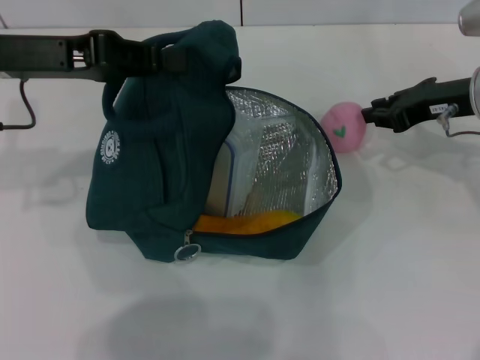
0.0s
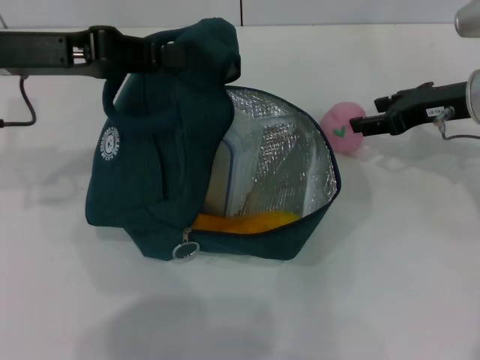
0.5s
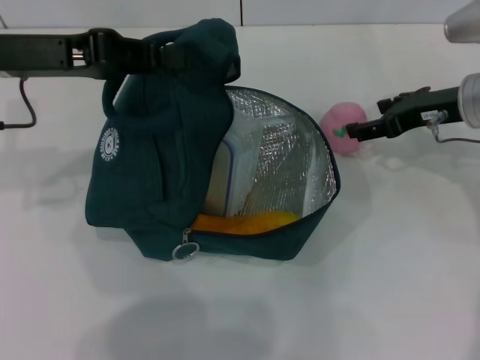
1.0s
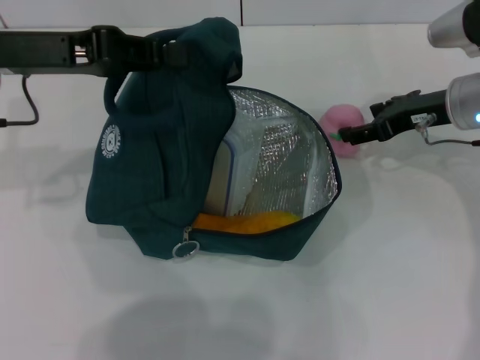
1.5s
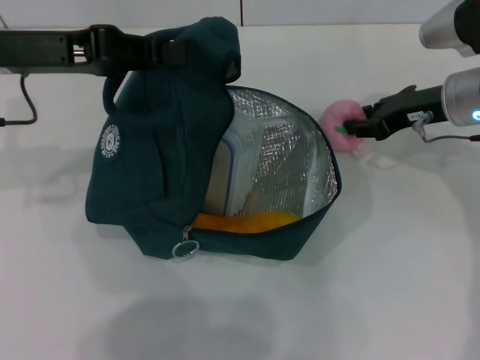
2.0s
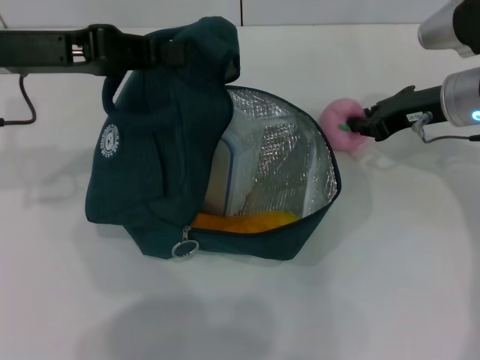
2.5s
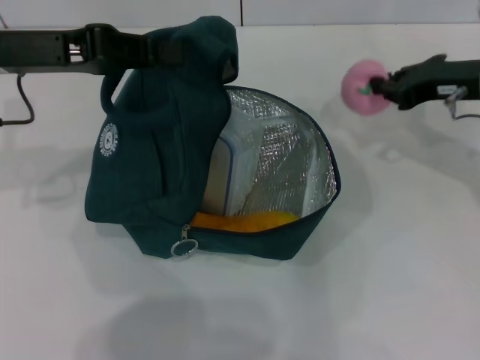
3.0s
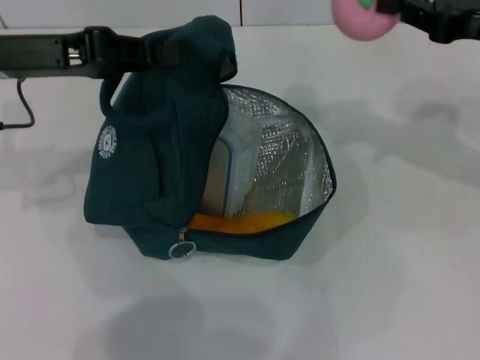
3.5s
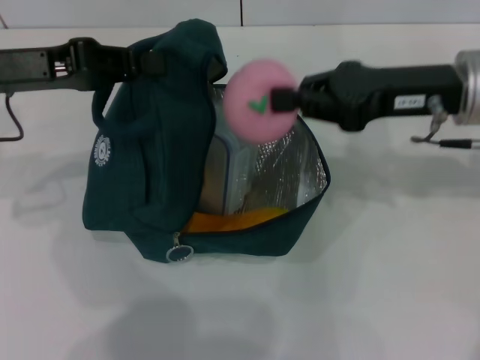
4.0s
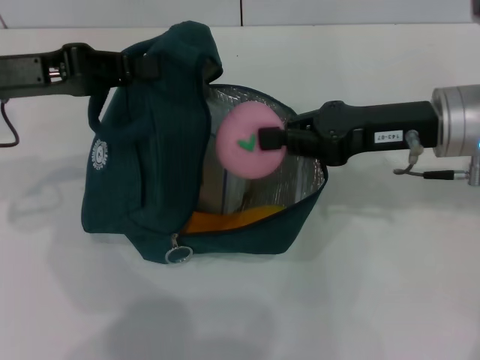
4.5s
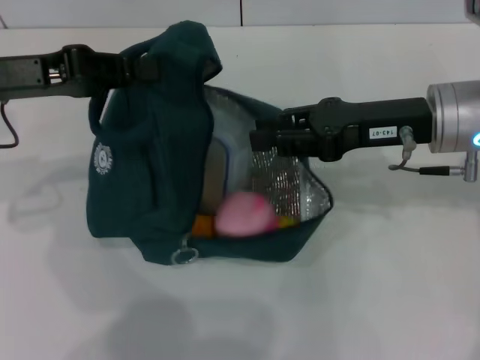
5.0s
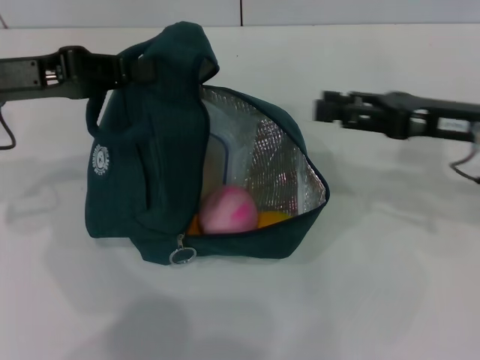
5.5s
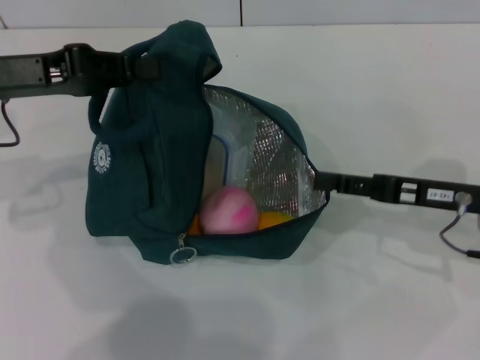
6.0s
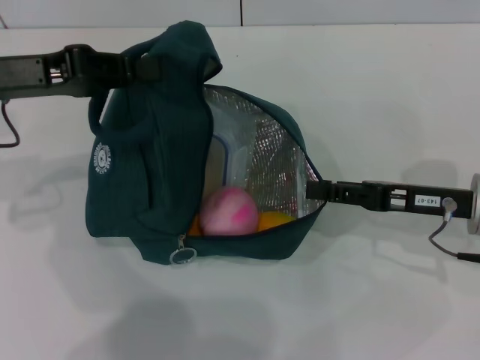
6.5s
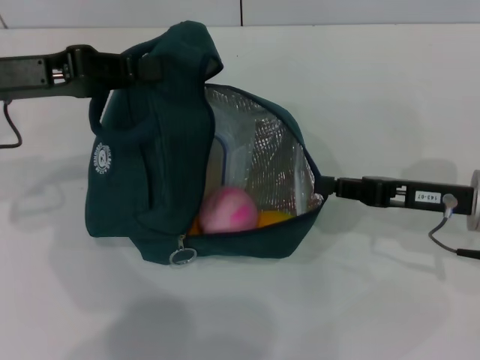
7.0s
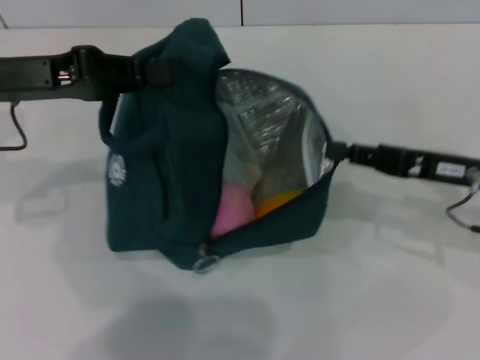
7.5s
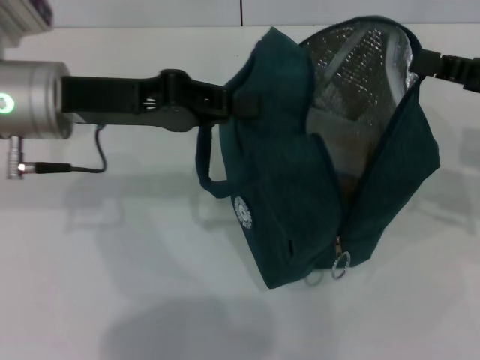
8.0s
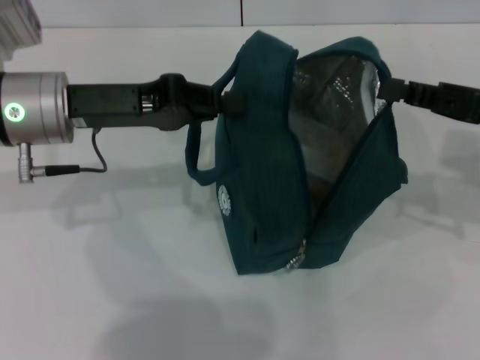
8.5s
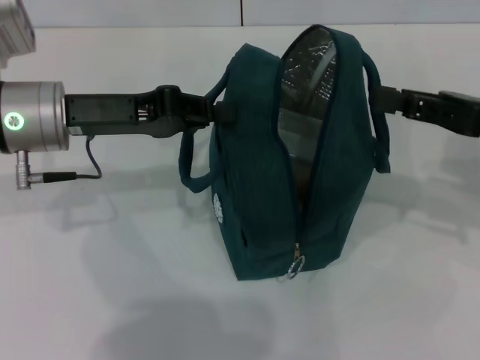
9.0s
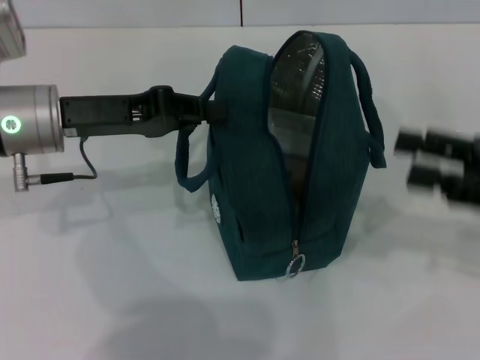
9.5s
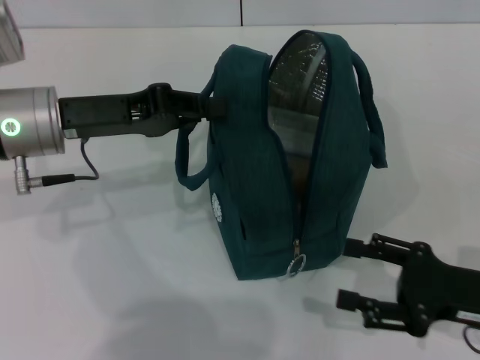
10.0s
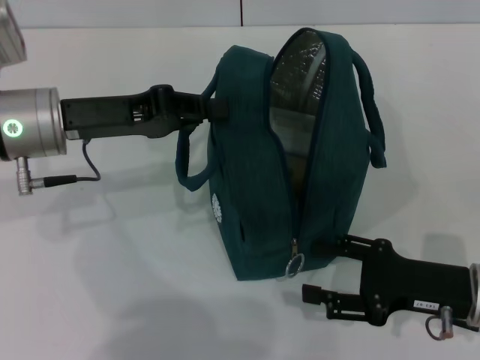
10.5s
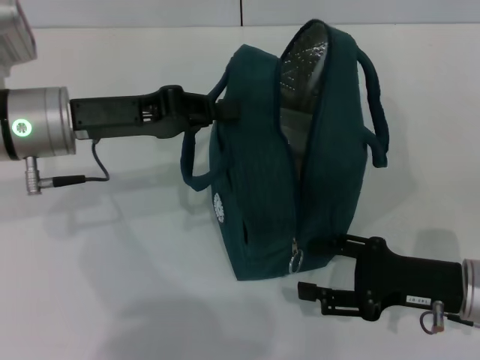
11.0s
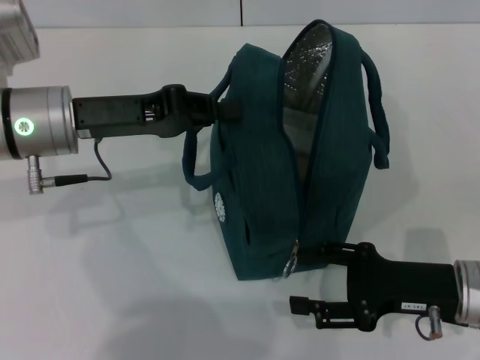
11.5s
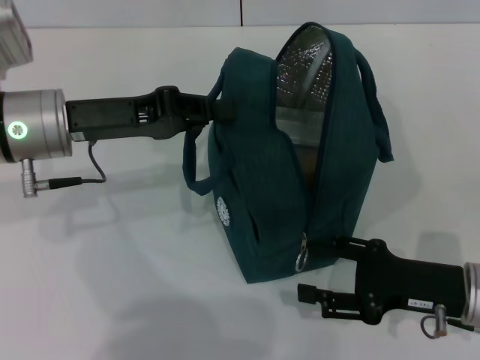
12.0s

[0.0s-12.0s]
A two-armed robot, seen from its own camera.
Step, 0.0s to 2.0s: Grab the peach with your right hand.
Step, 5.5s to 8.5s: Hold the lunch bag with your right hand.
0.0s to 2.0s: The right gripper opens.
2.0s to 4.0s: The right gripper goes roughly 10 cm backward and upward, and closes up.
4.0s to 6.0s: The right gripper travels downward by roughly 10 cm, and opens its fingers.
6.0s to 8.0s: The left gripper is displaced to the right by roughly 5 cm; the right gripper travels upward and to the right by approximately 10 cm, and closes up.
8.0s to 10.0s: The right gripper moves downward and backward, roughly 15 cm, and opens.
10.0s to 12.0s: The grippers stay close to where they were, moving slightly.

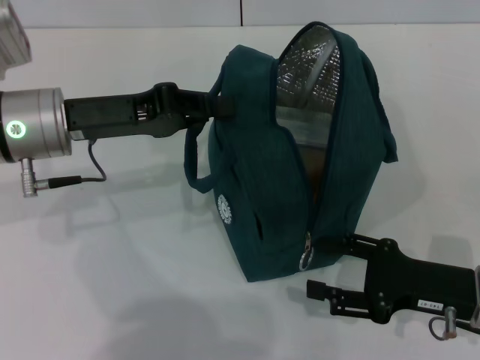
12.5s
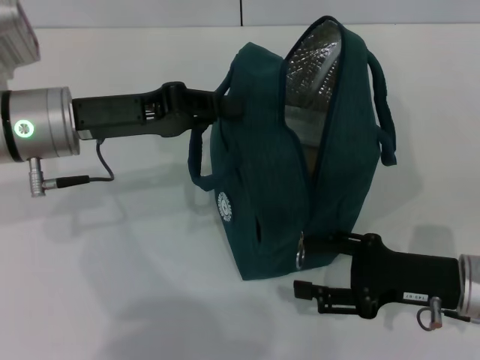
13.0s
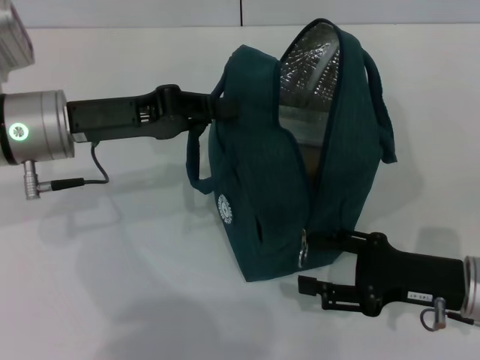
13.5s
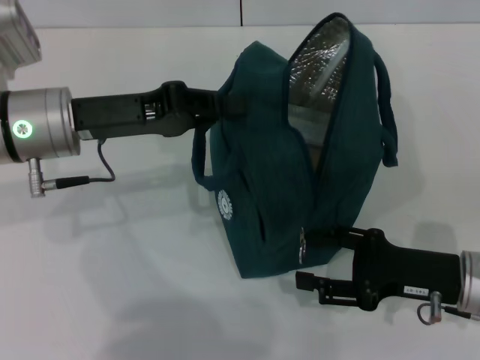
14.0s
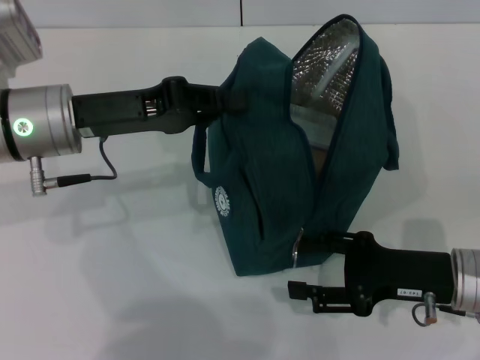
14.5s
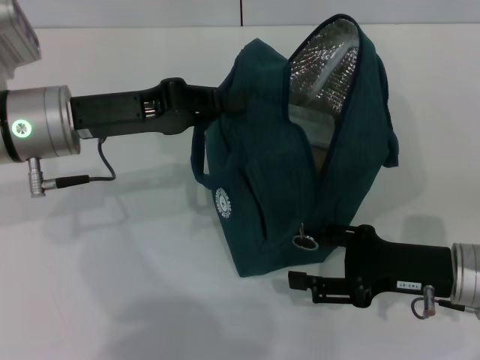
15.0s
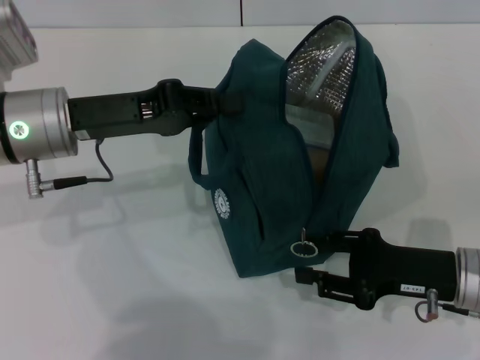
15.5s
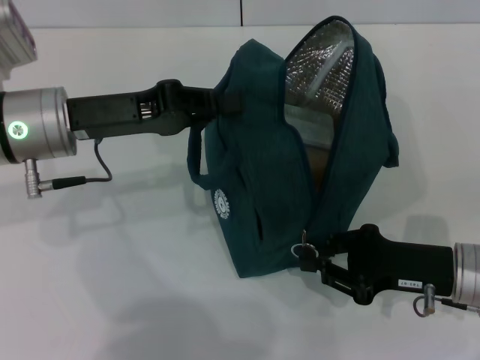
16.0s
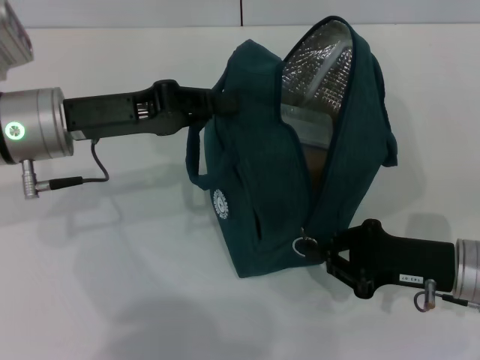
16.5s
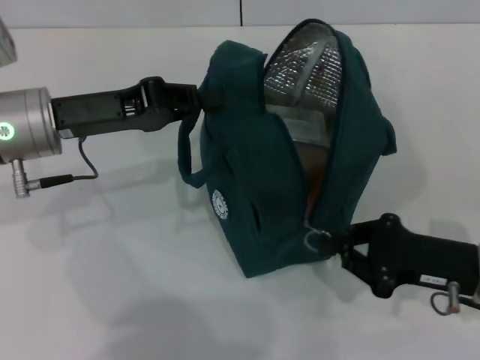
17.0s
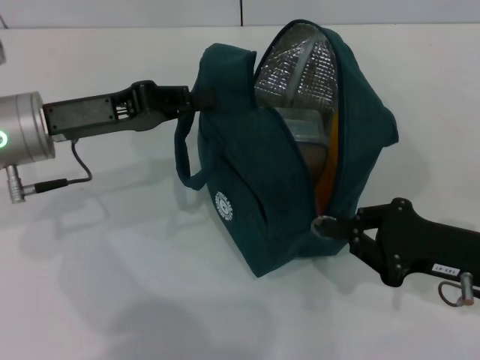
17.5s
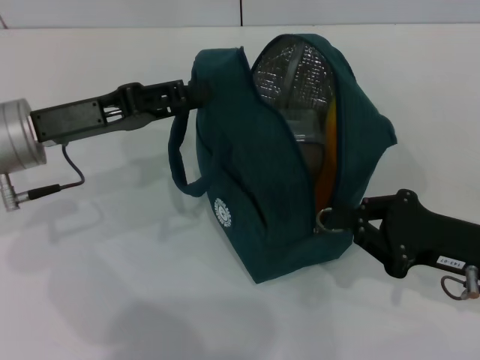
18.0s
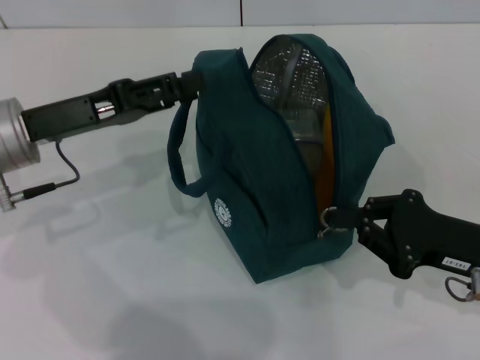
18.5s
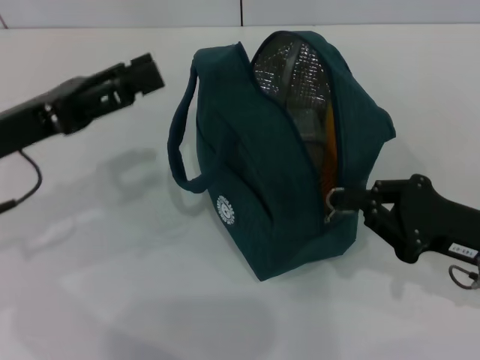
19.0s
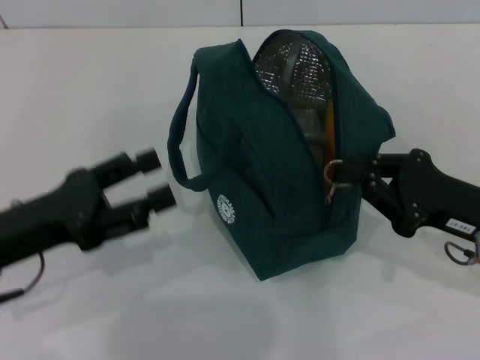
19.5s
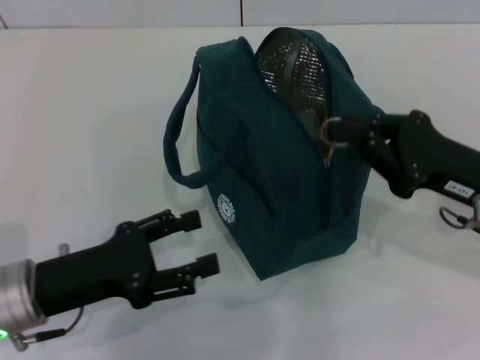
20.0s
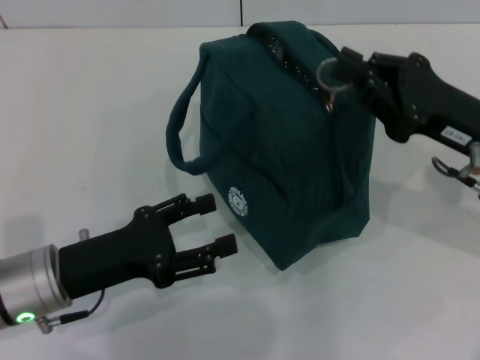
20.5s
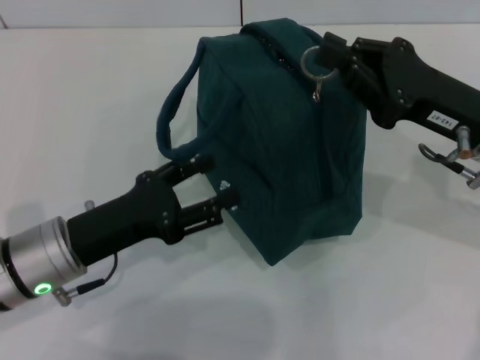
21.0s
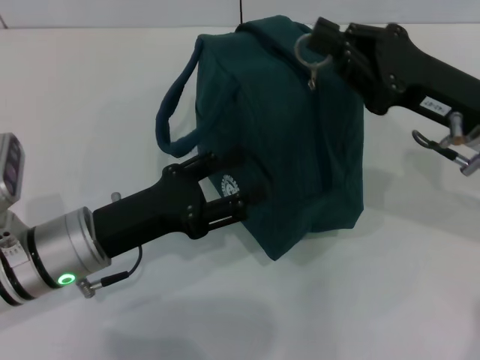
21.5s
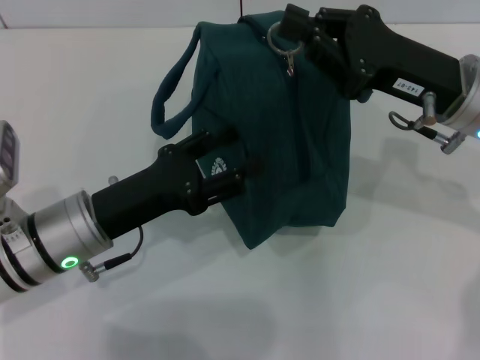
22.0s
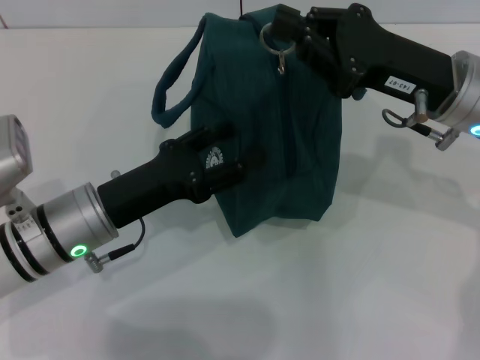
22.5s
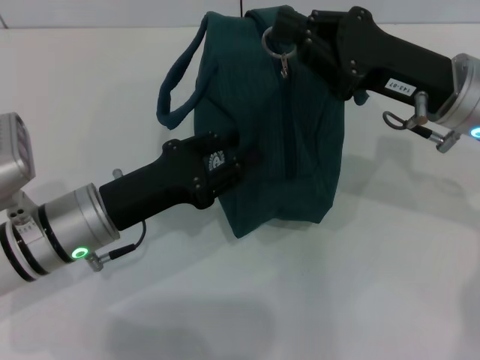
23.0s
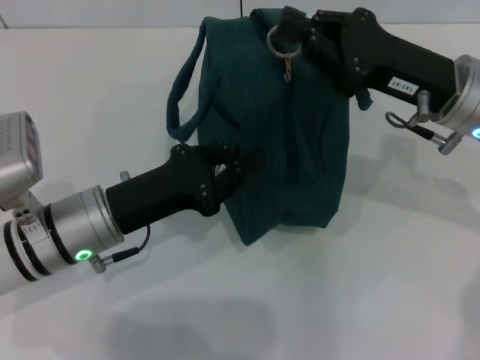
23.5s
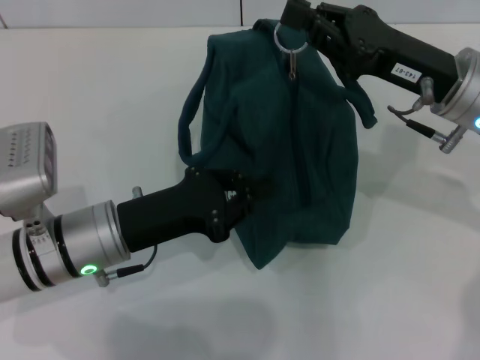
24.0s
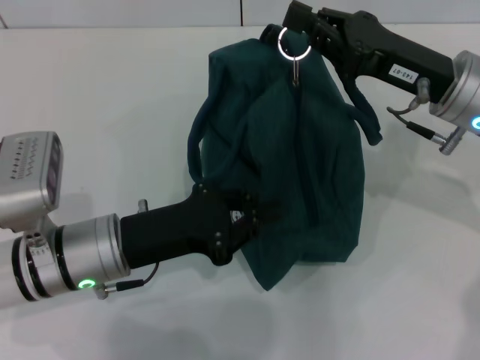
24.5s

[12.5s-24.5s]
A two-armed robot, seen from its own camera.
Step, 12.5s to 18.0s: Hold the lunch bag with your left hand.
12.5s to 14.5s: The grippers move only a little.
14.5s to 16.5s: The right gripper closes.
16.5s to 18.5s: The left gripper opens up.
18.5s to 20.5s: The left gripper goes approximately 10 cm backward and downward, while the right gripper goes about 10 cm upward and forward.
20.5s to 22.5s: The right gripper ends up some 5 cm from where it was. Meanwhile the left gripper shifts by some 5 cm.
22.5s to 24.5s: The left gripper closes its fingers.

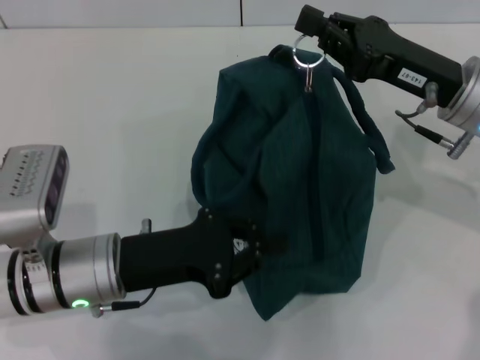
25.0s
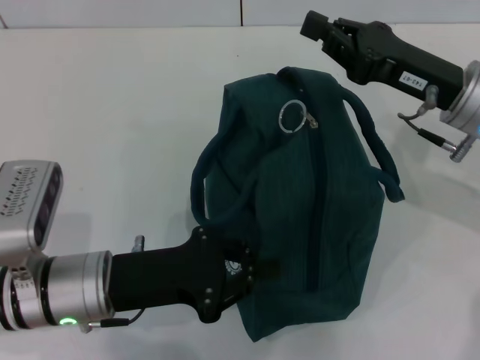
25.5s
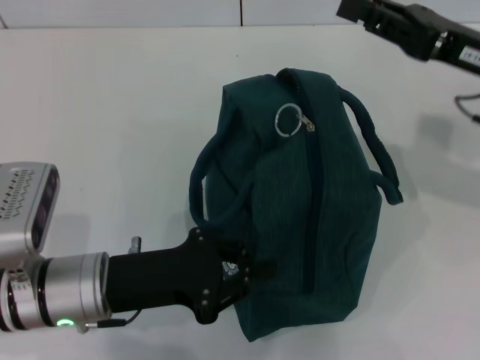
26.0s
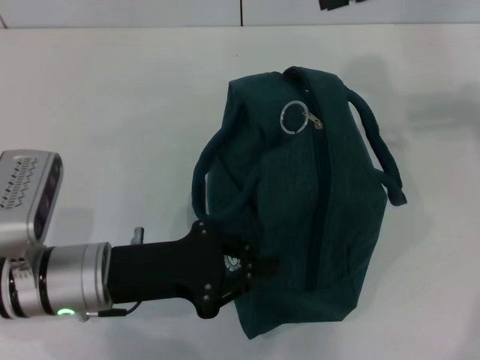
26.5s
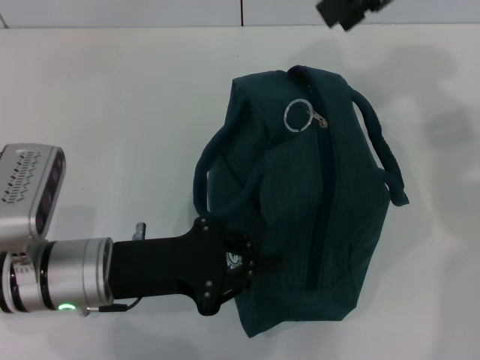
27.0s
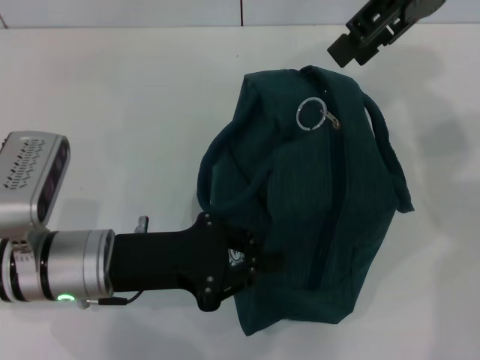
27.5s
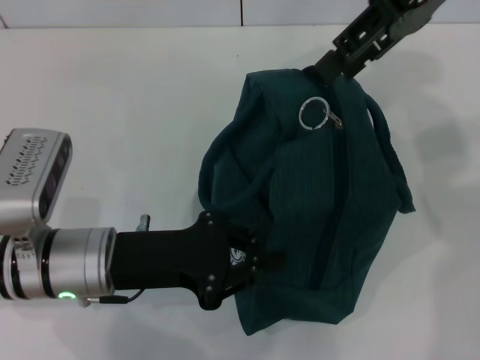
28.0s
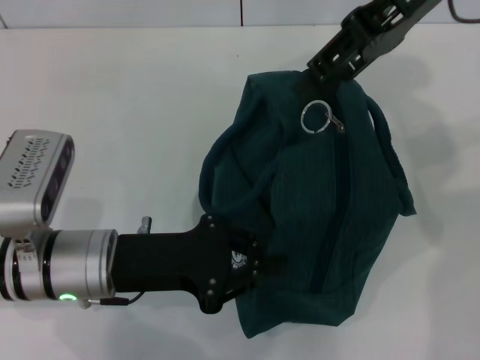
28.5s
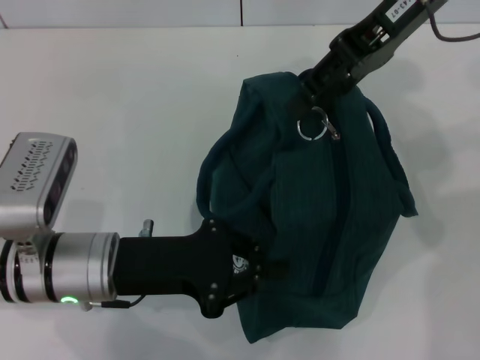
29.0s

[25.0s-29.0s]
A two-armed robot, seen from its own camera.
25.0s to 27.0s: The right gripper is displaced upward by approximately 20 cm, and opens its fingers.
27.0s to 29.0s: The right gripper travels downward by approximately 5 cm.
